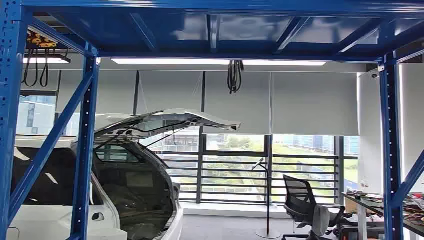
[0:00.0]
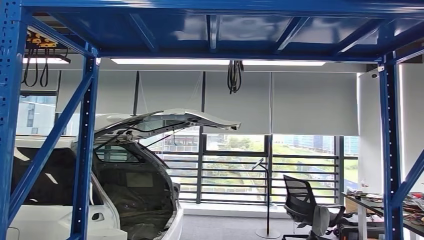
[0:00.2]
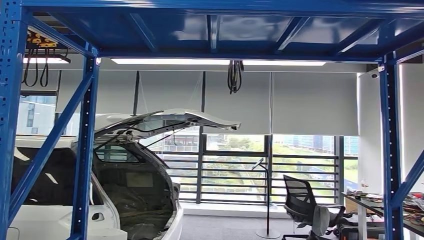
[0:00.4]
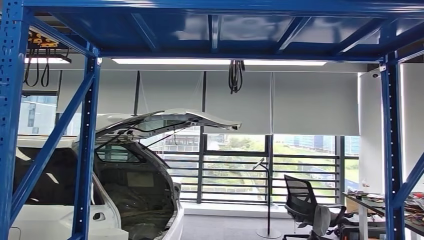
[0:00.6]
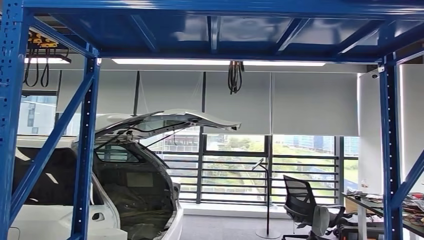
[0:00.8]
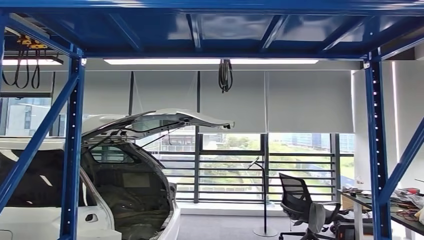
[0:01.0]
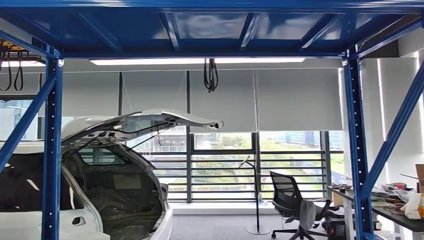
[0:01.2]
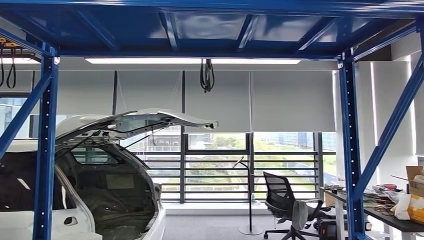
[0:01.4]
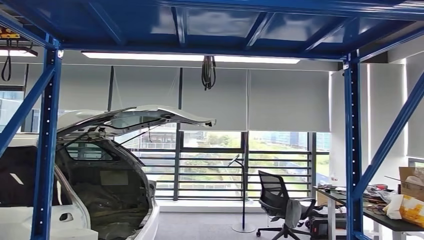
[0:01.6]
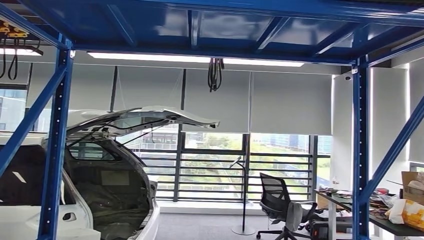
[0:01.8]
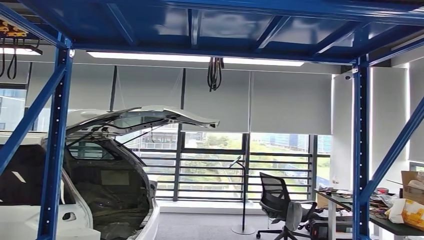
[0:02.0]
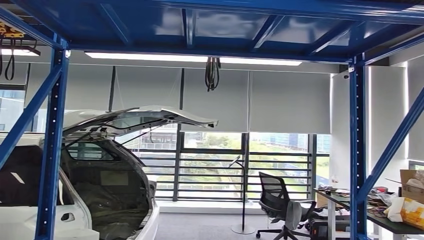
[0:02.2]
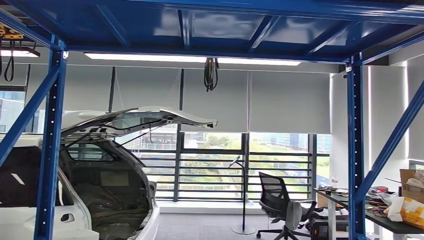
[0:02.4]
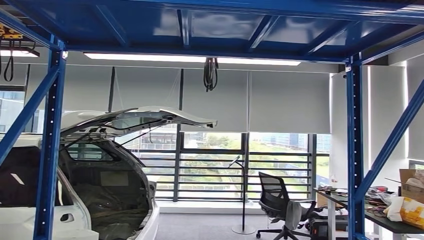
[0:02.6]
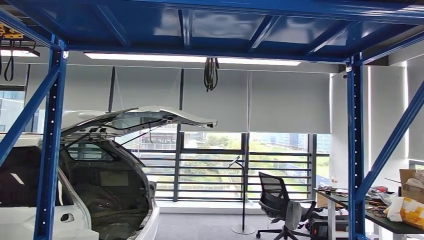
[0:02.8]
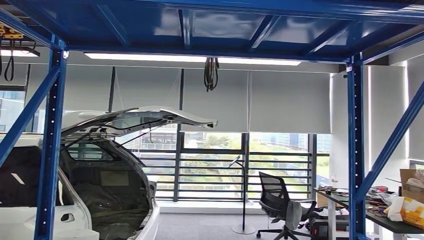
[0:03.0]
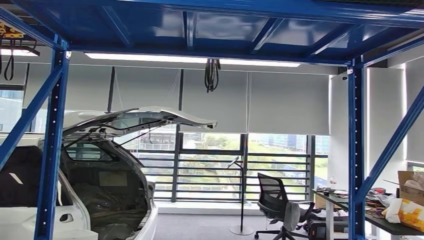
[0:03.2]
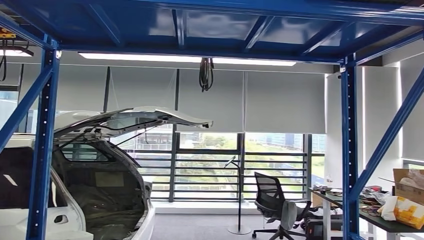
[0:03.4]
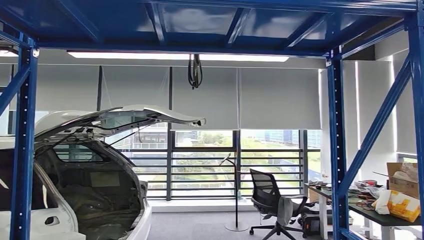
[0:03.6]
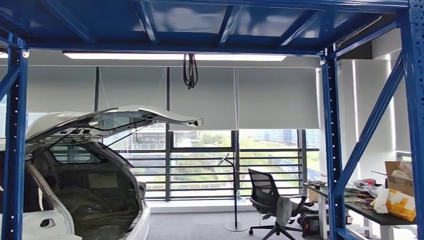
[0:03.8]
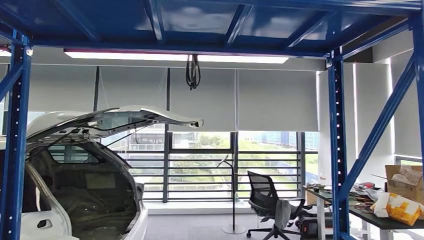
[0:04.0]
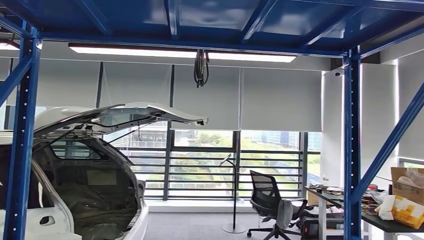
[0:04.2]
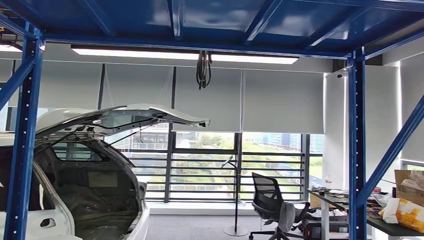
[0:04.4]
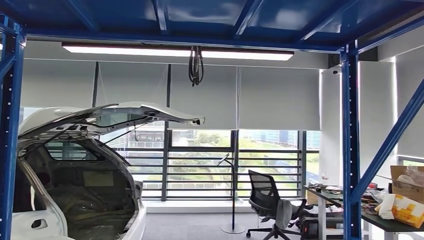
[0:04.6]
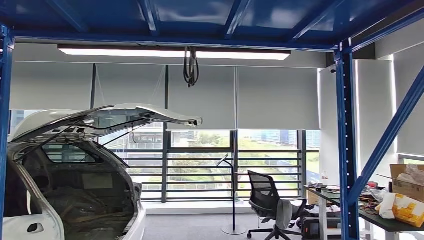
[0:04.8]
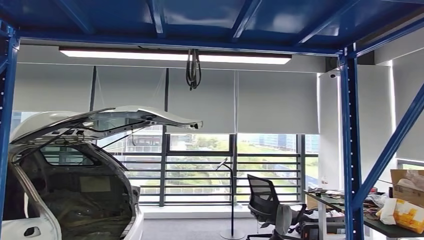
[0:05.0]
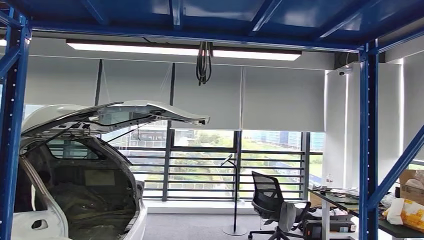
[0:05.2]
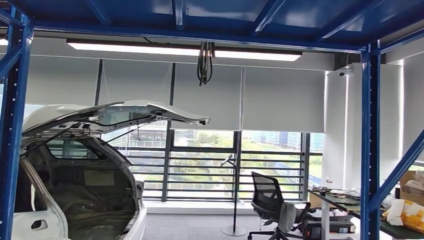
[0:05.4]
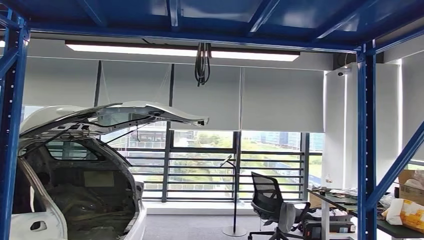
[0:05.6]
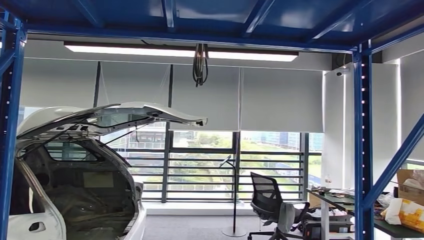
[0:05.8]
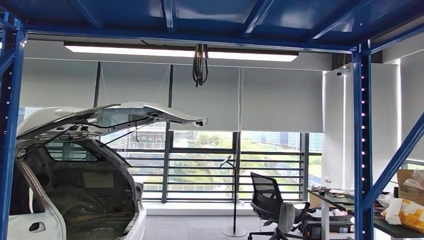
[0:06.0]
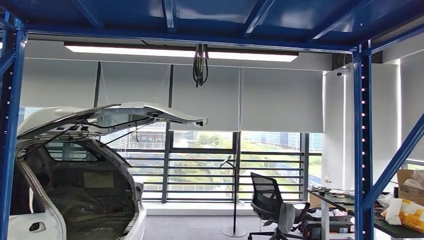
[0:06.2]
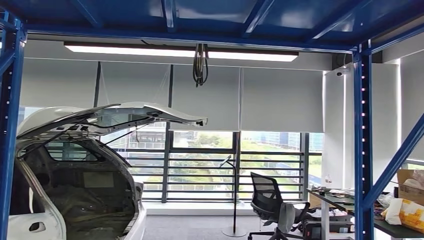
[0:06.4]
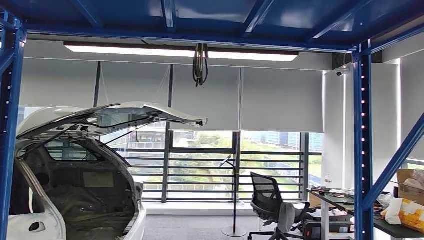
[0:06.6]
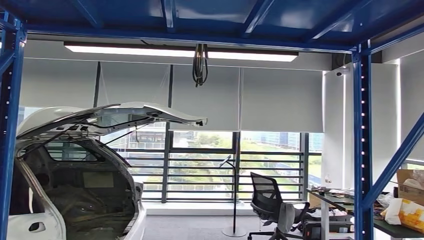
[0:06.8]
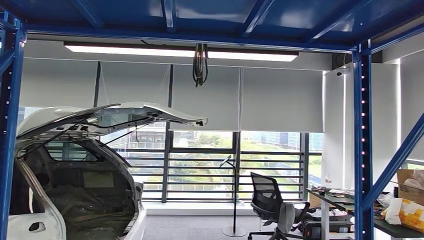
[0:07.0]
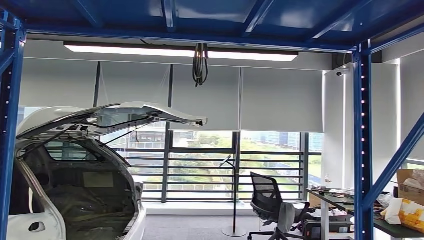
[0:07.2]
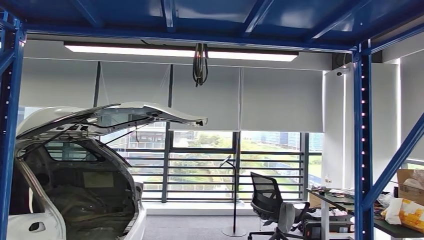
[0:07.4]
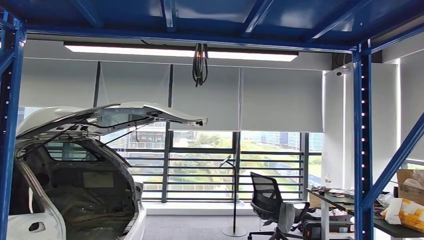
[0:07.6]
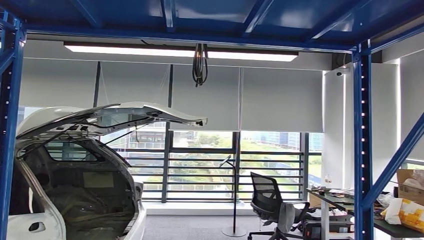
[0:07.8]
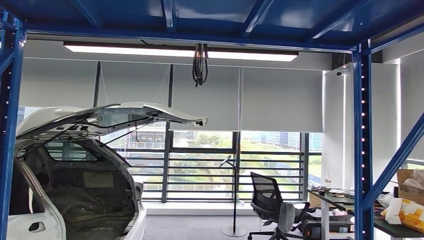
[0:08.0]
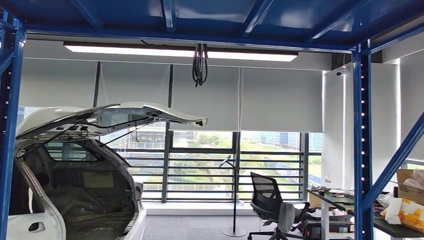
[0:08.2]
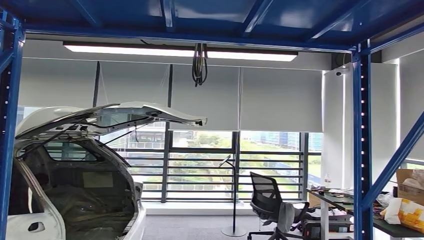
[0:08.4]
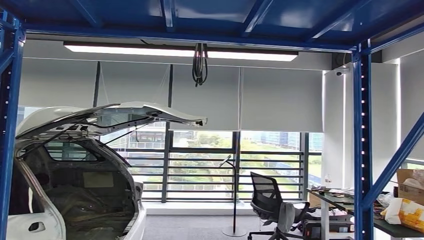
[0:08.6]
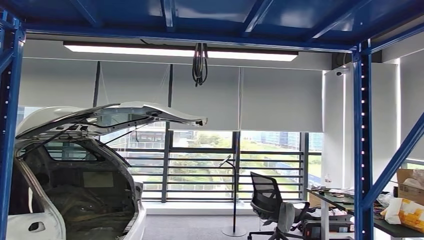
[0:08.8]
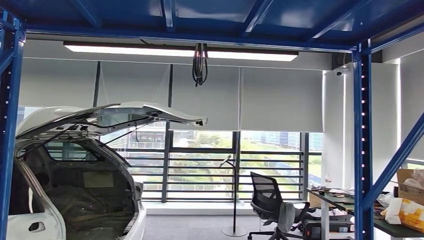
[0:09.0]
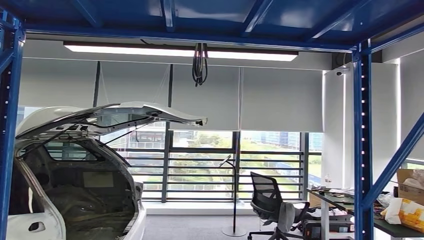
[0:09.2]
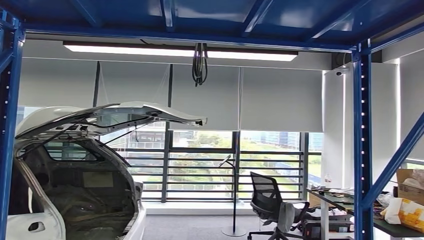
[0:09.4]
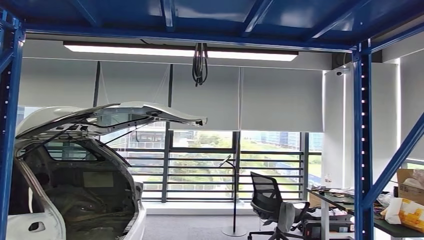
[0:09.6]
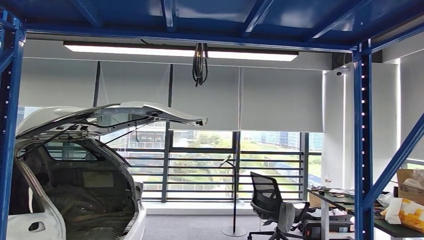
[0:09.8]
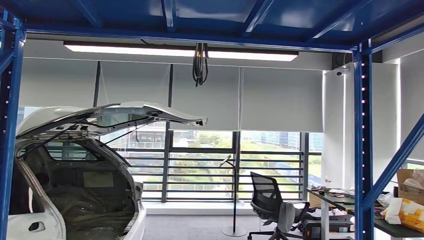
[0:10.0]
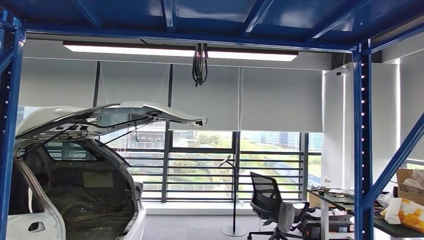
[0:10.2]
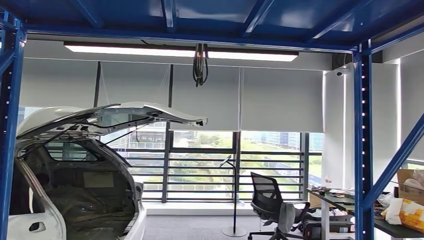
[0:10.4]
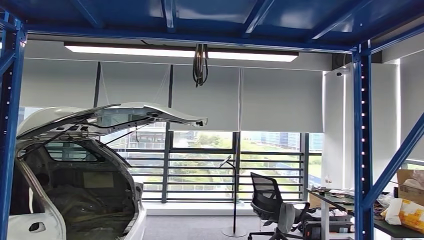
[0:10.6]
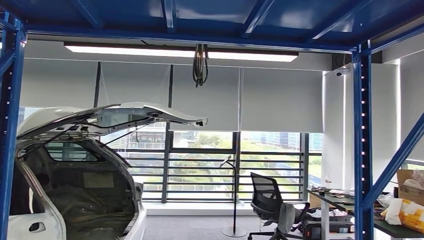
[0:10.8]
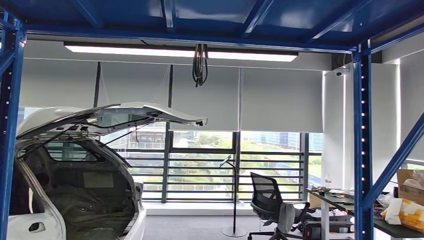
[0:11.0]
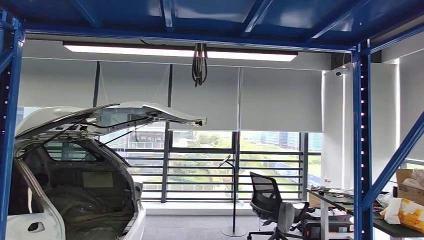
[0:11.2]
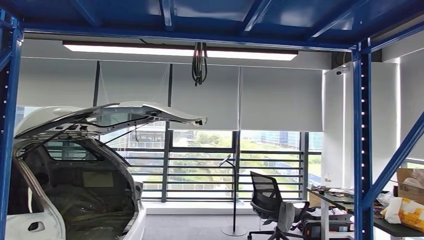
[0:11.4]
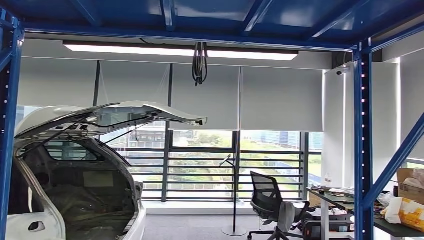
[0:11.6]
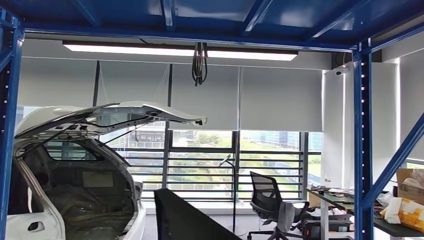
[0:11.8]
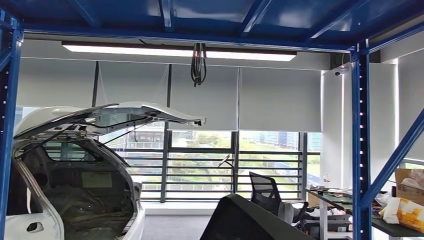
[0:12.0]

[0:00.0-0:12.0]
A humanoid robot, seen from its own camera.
Step, 0:00.0 to 0:11.2: Pick up the small component from the shelf.
0:10.4 to 0:12.0: The right hand travels backward and upward by roughly 15 cm.

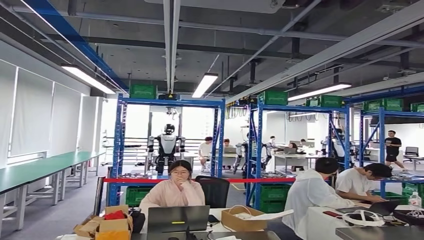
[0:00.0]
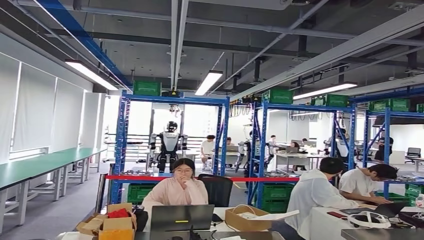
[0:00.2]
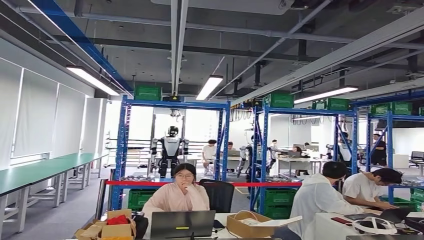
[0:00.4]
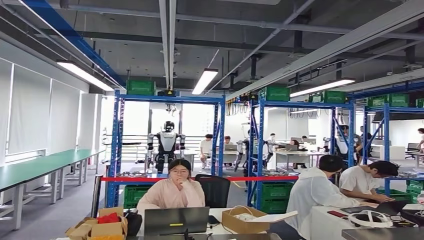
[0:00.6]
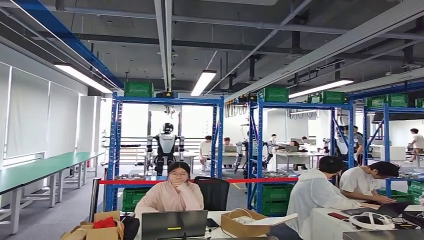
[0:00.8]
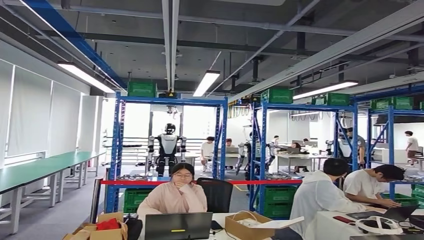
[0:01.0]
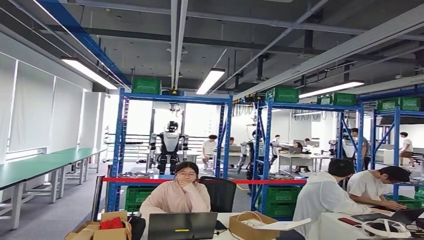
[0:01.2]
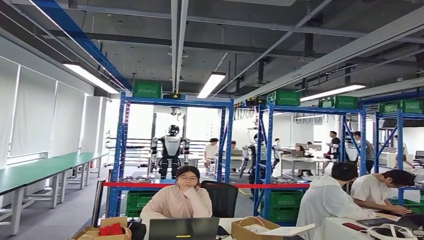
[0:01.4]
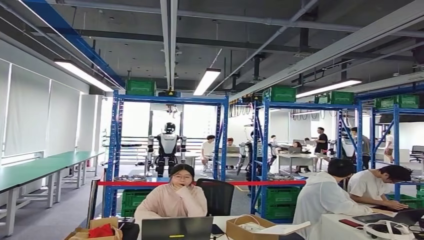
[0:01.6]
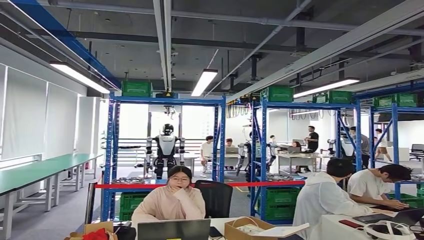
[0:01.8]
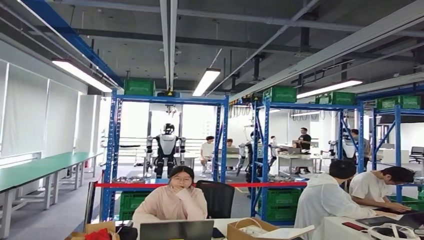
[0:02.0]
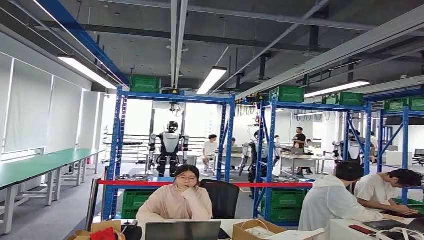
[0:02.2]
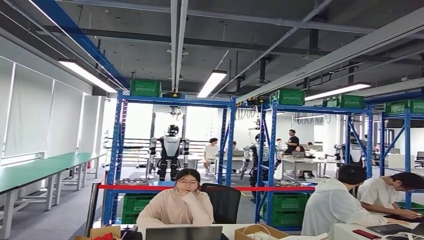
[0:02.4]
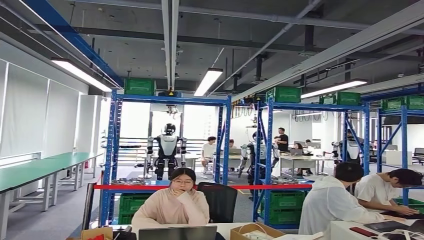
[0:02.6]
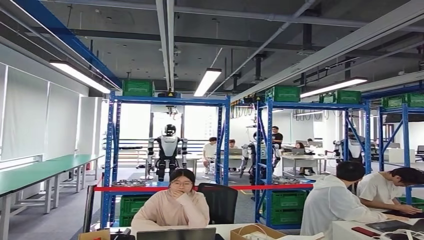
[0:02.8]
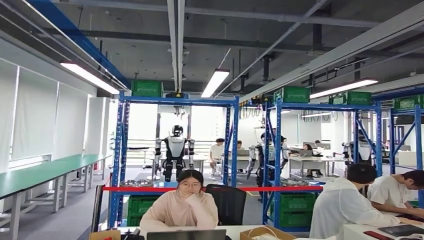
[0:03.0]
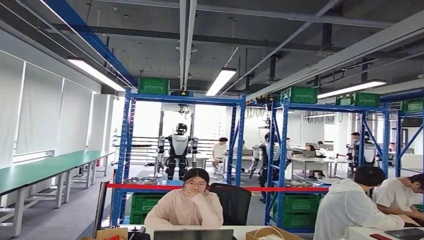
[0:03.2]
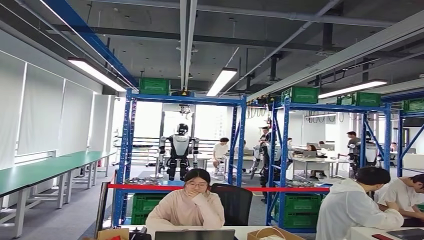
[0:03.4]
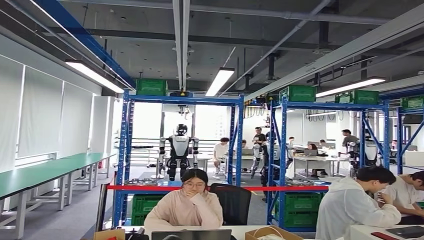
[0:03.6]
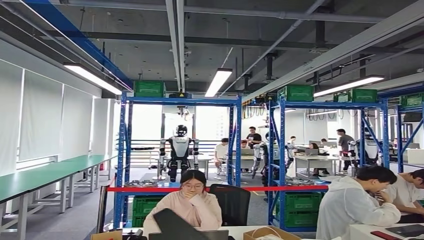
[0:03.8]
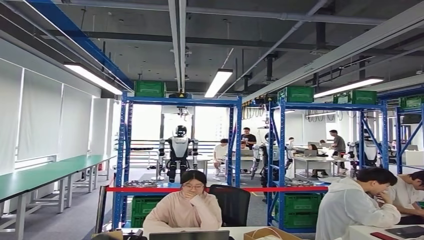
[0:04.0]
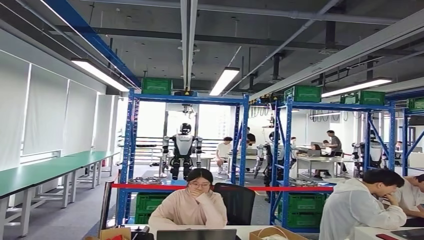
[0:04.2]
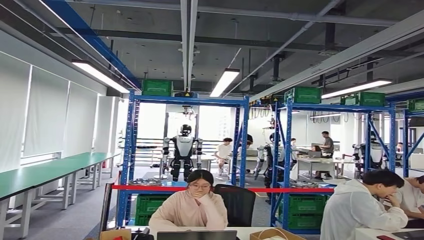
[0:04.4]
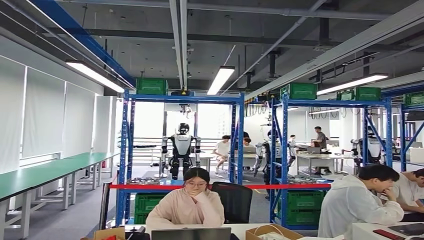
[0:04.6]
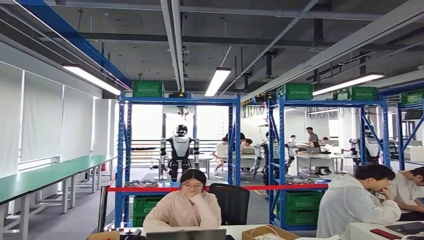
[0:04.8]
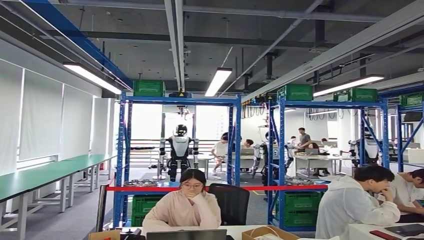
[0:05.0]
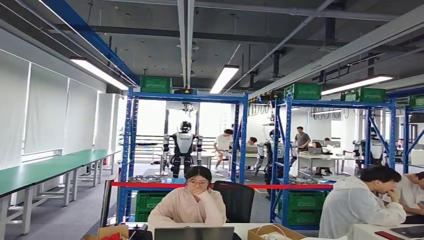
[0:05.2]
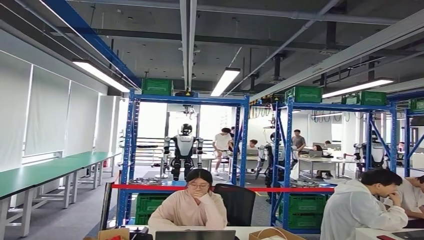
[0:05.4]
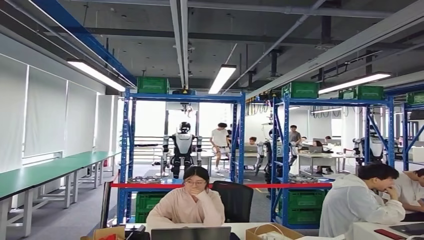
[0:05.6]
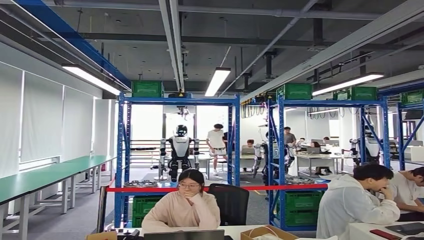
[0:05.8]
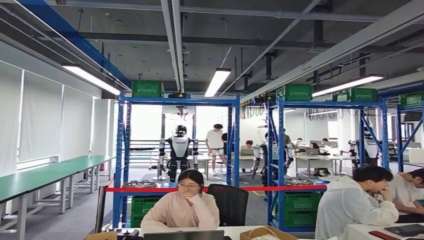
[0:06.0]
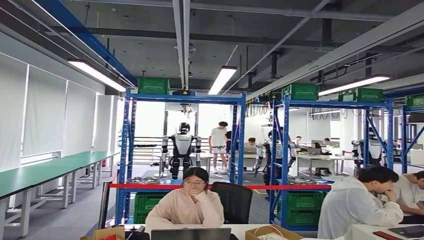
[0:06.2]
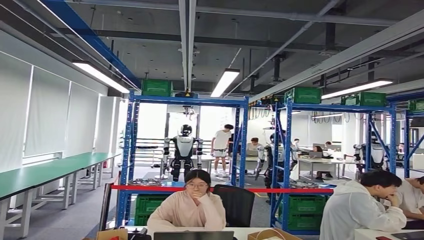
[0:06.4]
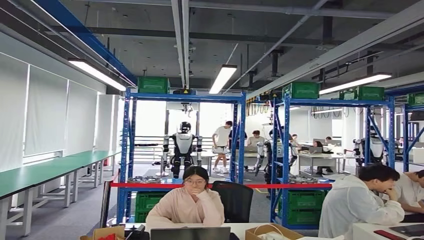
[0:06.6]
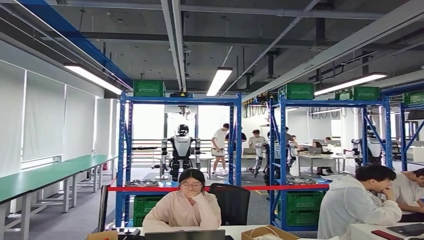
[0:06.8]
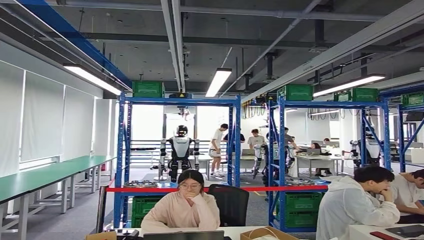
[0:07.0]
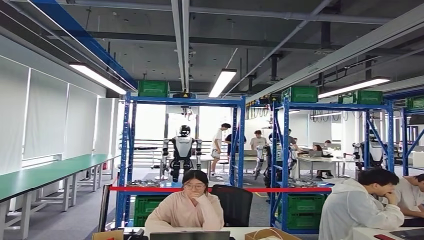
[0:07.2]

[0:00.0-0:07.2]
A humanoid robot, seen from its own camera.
Step, 0:00.0 to 0:04.0: Move the small component to the workbench.
